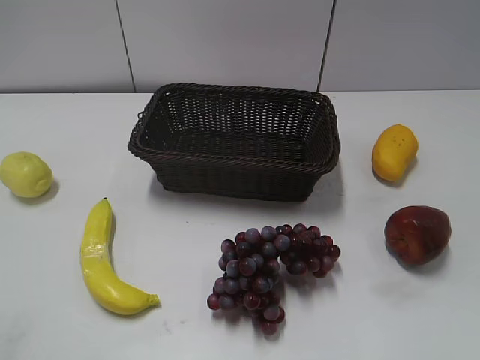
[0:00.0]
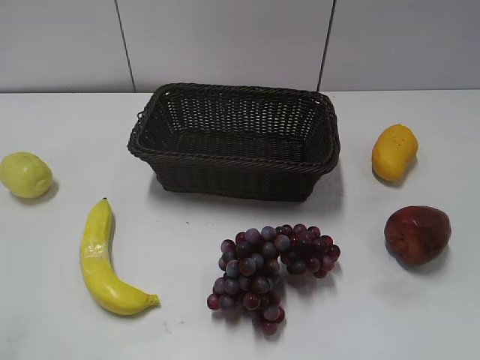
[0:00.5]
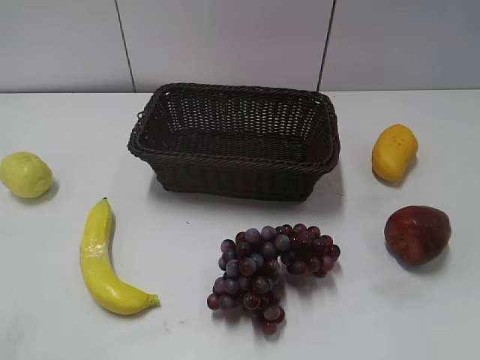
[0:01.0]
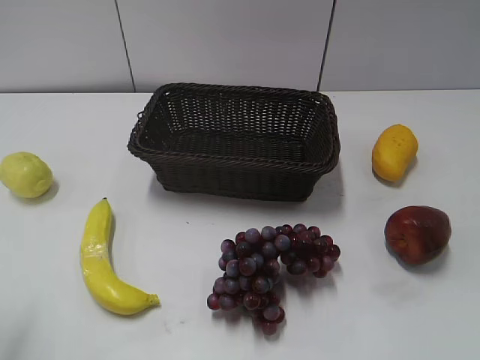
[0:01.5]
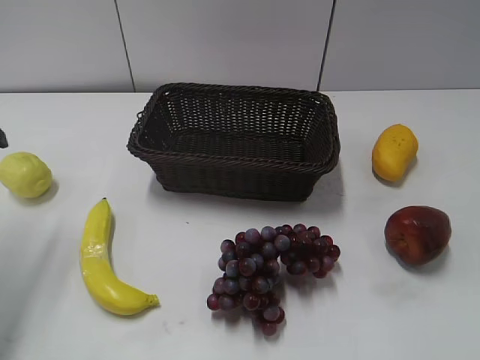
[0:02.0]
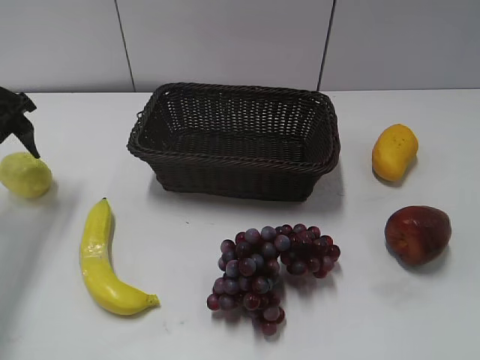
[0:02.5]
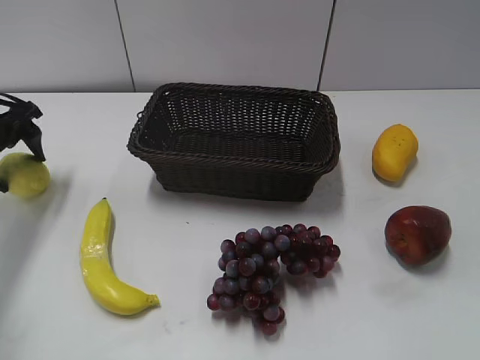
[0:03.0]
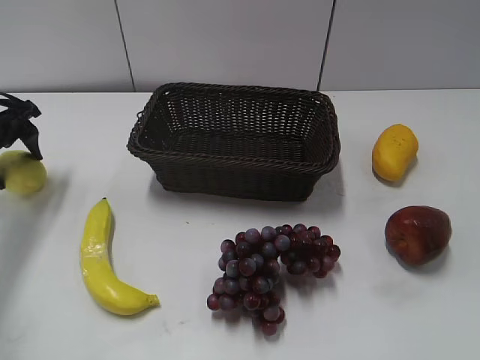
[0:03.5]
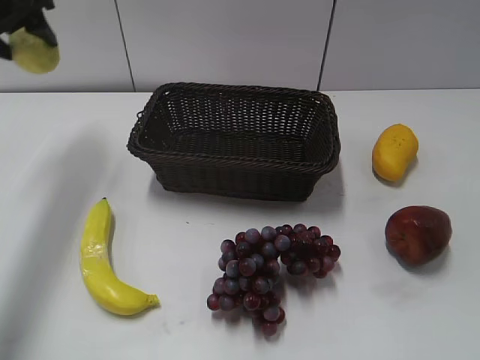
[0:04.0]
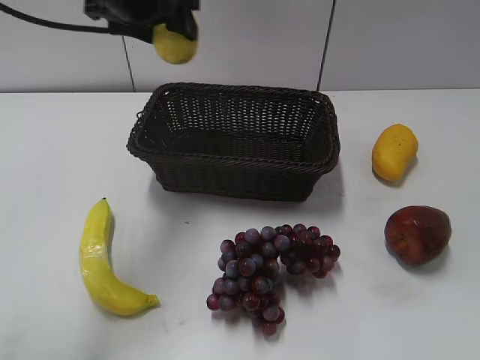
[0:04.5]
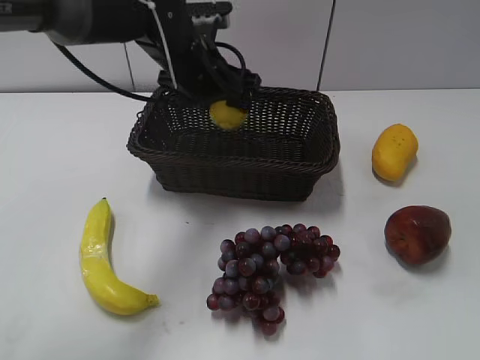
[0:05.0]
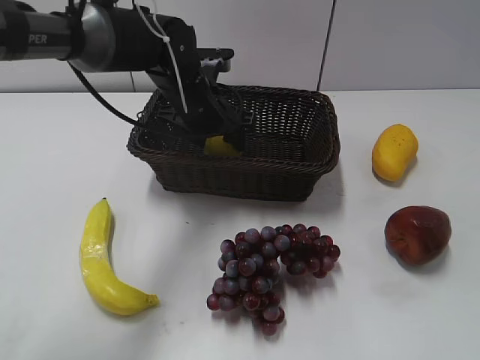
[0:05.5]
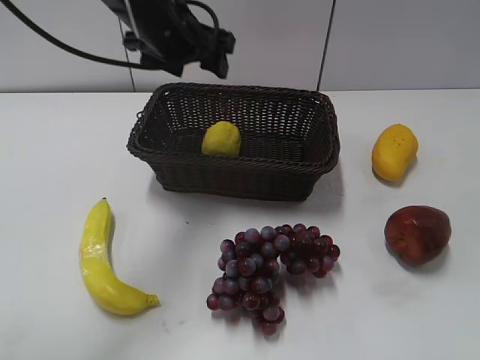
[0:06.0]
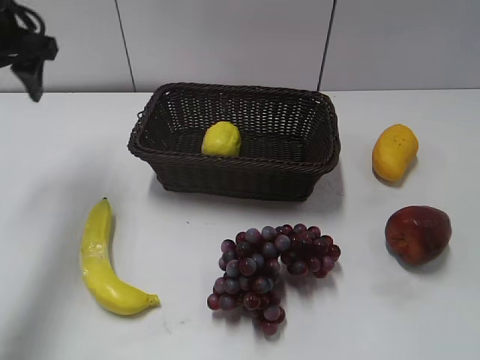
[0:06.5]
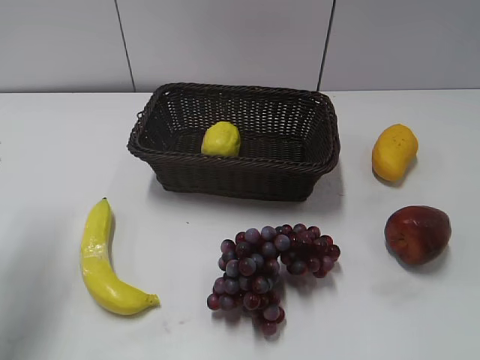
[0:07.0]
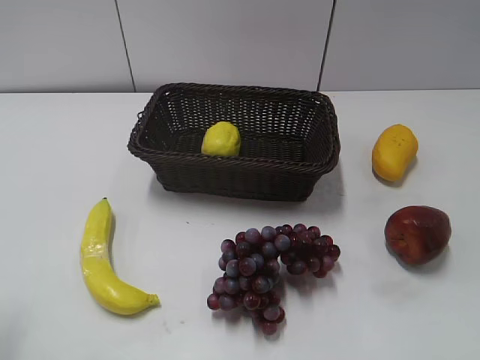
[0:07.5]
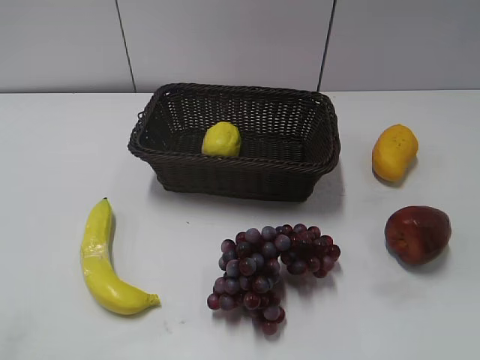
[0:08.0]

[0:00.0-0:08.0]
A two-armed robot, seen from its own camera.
Step, 0:02.0 to 0:03.5: Grasp the lemon with left gripper.
Step, 0:04.0 to 0:05.5: Place the lemon in the basket with left gripper.
0:02.0 to 0:04.0: The left gripper is displaced forward by roughly 15 cm.
0:04.0 to 0:06.0: The left gripper goes about 20 cm to the right, and opens its fingers.
0:06.0 to 0:08.0: The left gripper is displaced backward and to the left by some 40 cm, and closes.
